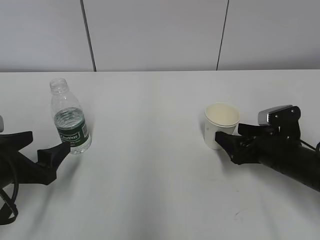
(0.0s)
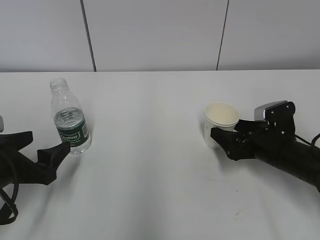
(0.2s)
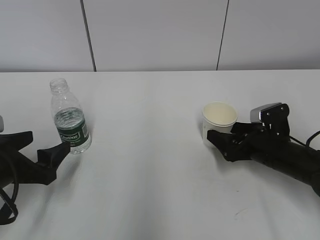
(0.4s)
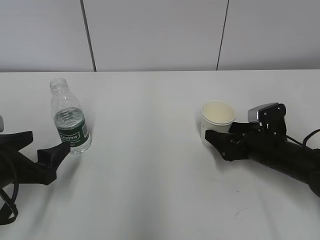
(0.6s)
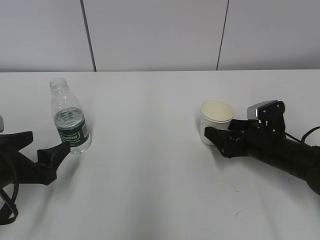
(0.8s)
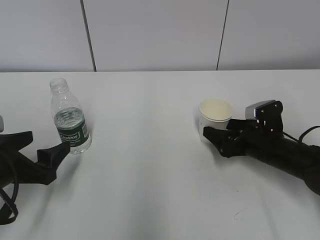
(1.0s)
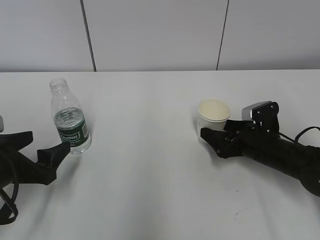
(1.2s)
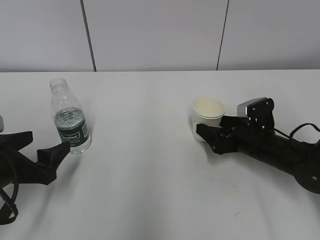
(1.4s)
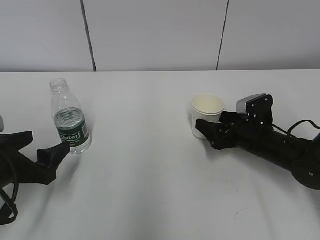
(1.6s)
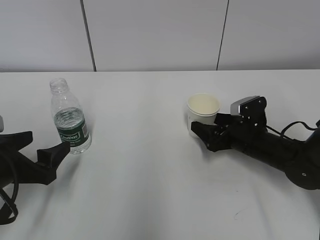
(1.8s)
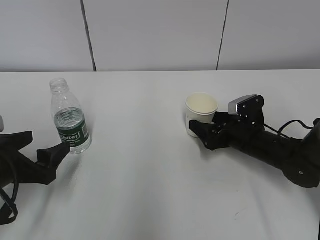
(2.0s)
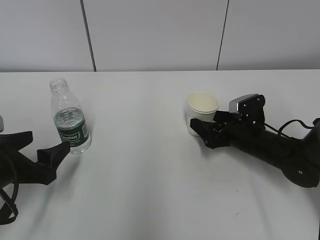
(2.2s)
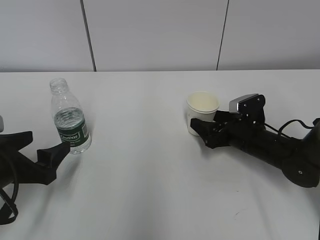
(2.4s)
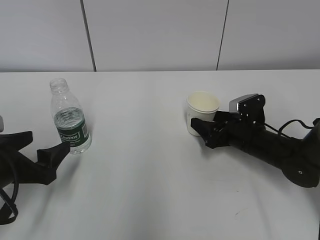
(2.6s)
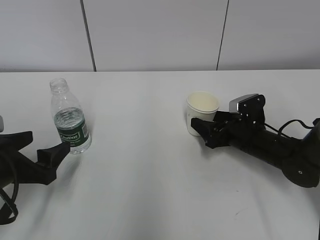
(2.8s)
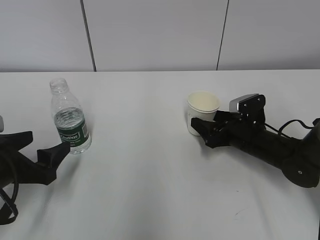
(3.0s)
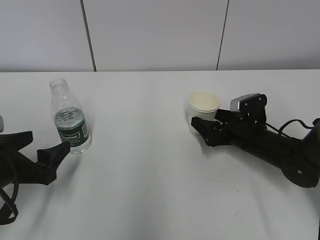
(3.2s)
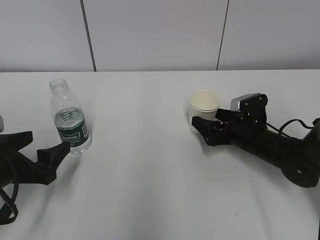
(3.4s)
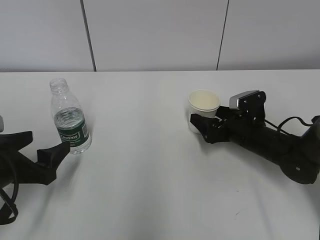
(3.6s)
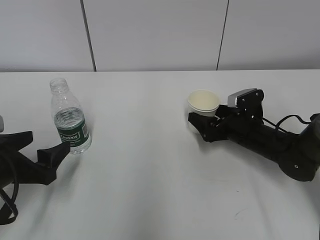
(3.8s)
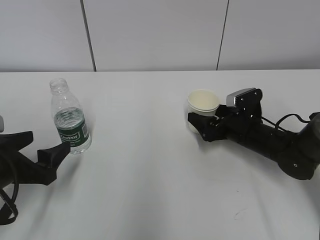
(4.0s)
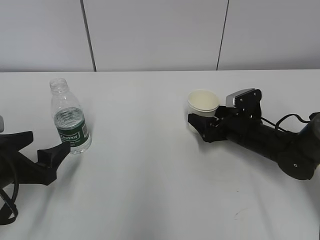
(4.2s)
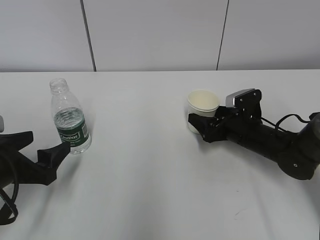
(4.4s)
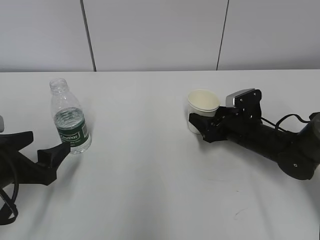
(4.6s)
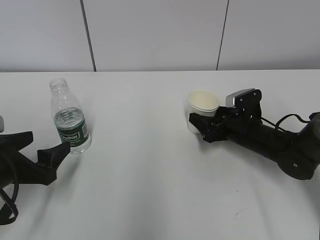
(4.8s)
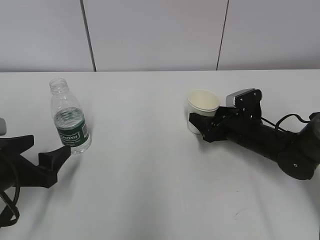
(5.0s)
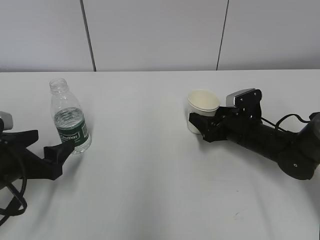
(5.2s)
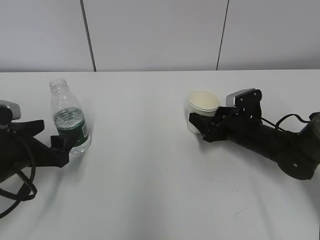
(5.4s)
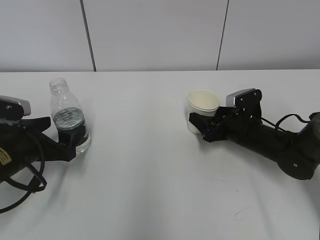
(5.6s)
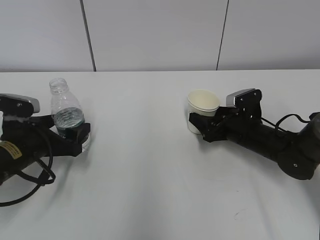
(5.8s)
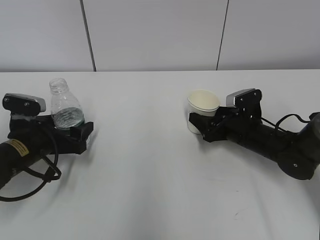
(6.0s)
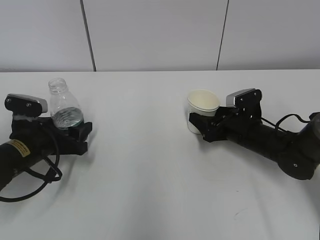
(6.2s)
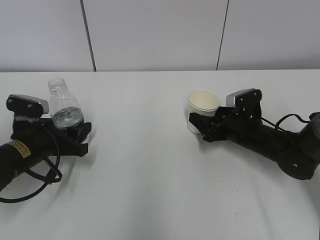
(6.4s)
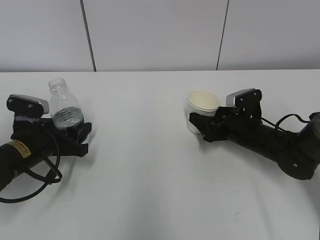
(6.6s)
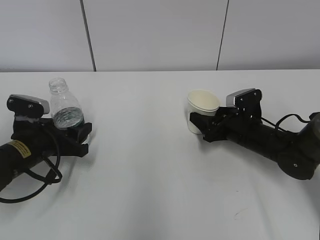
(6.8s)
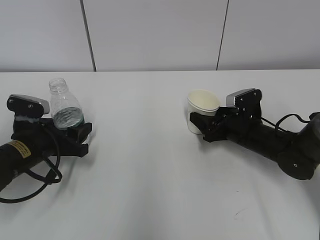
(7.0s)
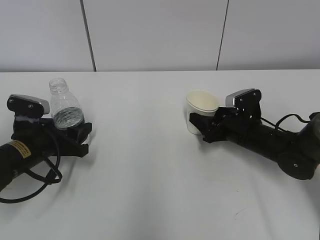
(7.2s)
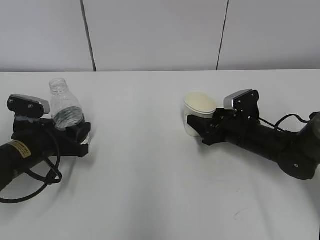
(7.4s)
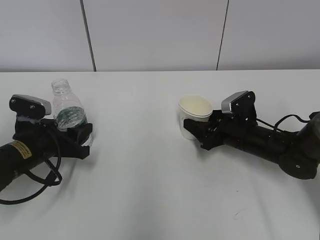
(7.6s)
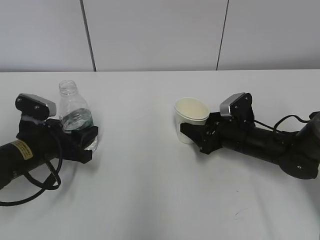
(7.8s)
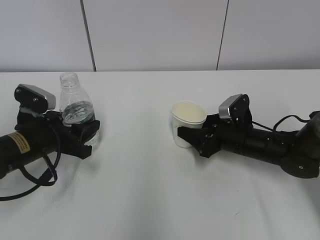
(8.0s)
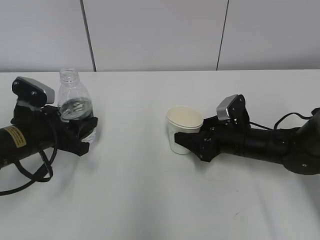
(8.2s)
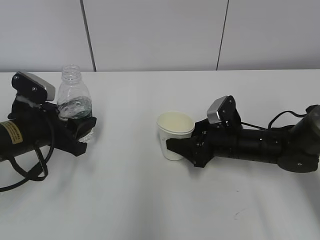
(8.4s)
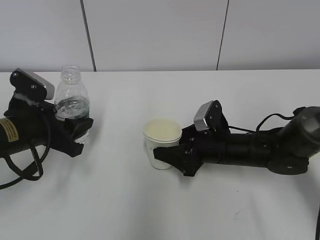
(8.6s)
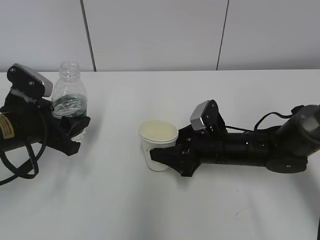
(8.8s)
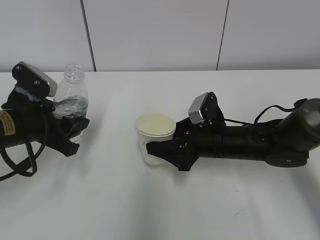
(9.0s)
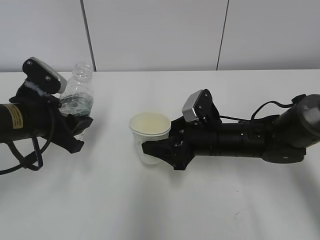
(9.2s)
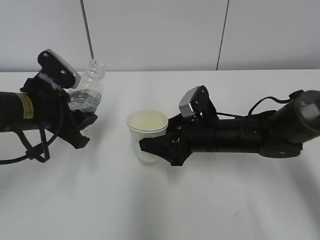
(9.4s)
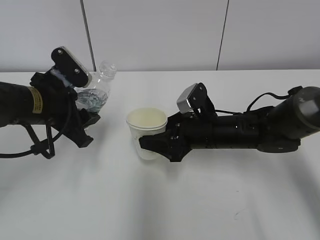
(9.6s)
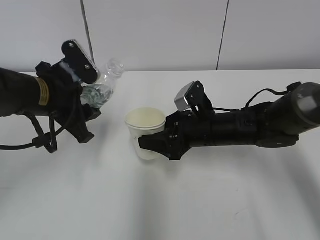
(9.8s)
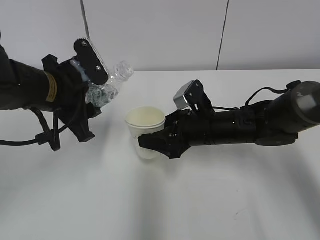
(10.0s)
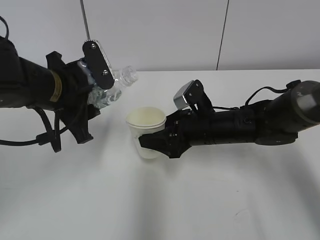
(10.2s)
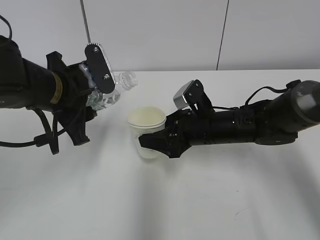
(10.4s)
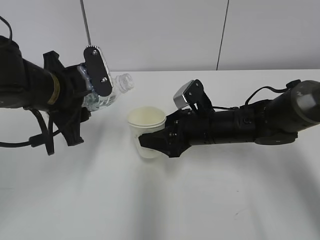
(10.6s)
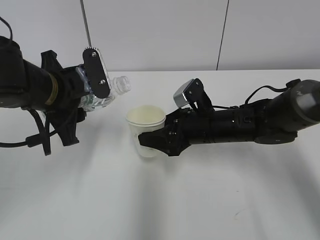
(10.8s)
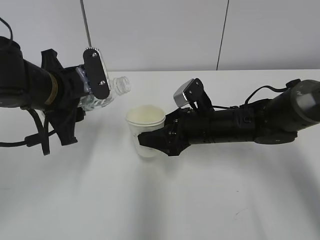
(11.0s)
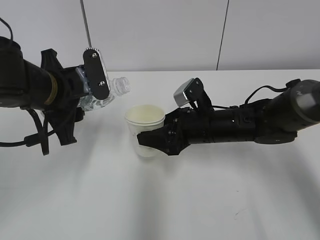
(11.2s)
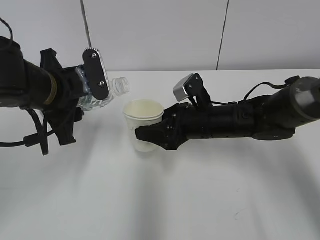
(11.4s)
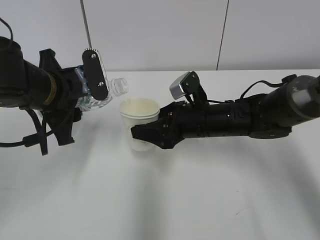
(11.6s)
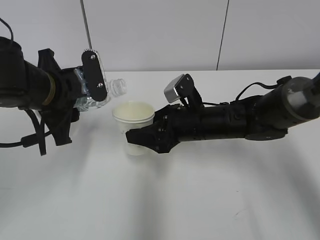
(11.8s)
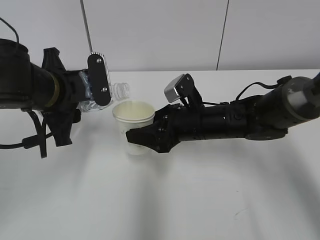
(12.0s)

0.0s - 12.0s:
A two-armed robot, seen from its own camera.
Step, 0.0s - 4.8s: Grab the paper cup with the right hand.
Step, 5.0s - 5.2s: Grab the water bottle with the left hand.
Step, 5.4s - 10.0s: Lift the paper cup with the right hand.
0.0s - 1.6s: The right gripper is displaced forward by about 5 cm.
1.6s - 3.0s: The grippers move only a little.
3.0s - 4.4s: Both grippers stay put.
4.4s - 6.0s: The left gripper shifts some 10 cm forward.
6.0s - 7.6s: The left gripper closes.
7.6s - 9.0s: The right gripper moves to the left, roughly 5 cm, while the left gripper travels upward by roughly 5 cm.
9.0s - 10.4s: The left gripper moves to the right and upward, about 10 cm.
10.4s - 12.0s: There are only small adjustments of the grippers.

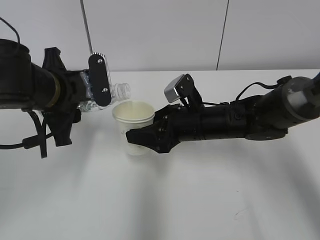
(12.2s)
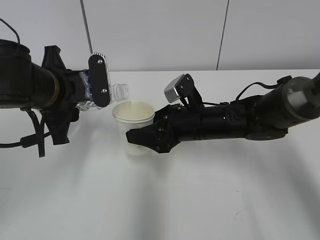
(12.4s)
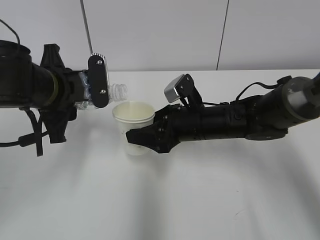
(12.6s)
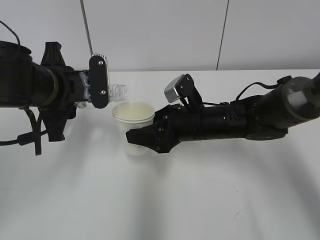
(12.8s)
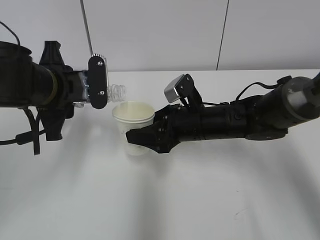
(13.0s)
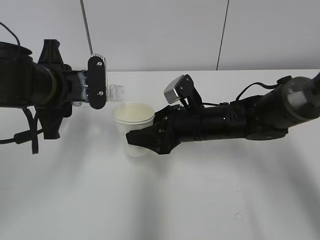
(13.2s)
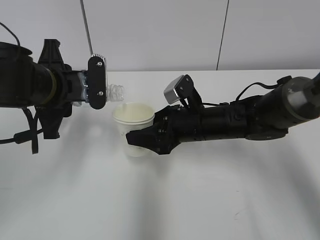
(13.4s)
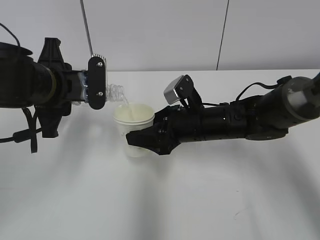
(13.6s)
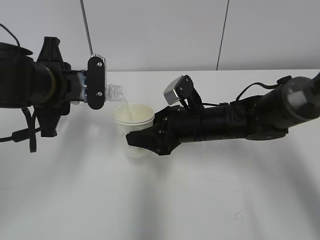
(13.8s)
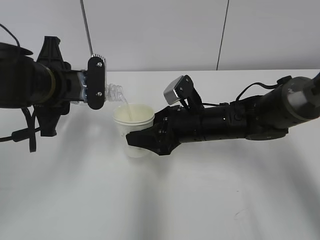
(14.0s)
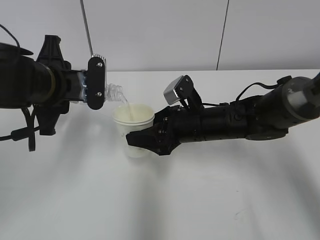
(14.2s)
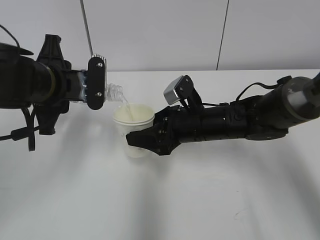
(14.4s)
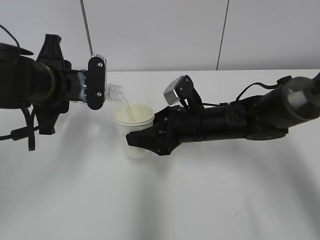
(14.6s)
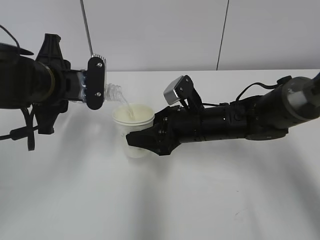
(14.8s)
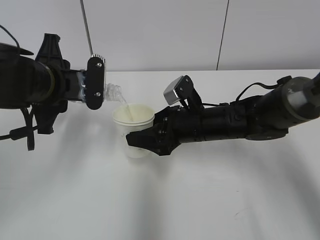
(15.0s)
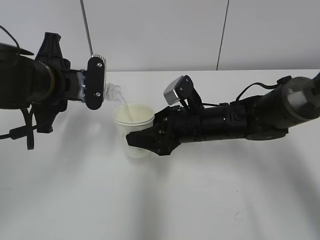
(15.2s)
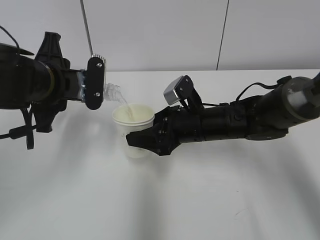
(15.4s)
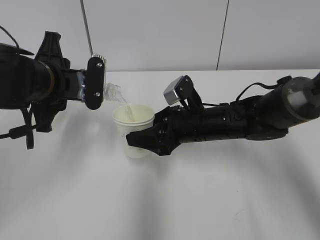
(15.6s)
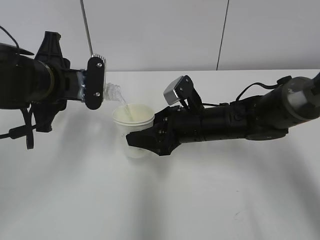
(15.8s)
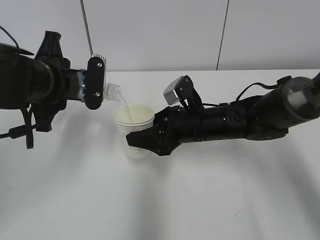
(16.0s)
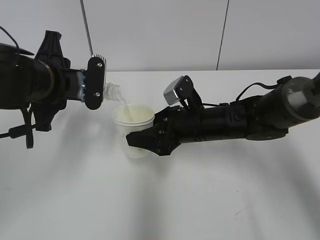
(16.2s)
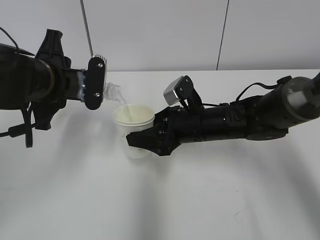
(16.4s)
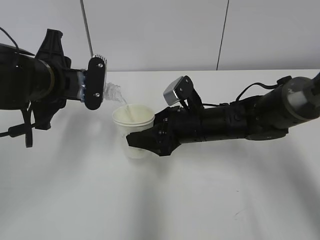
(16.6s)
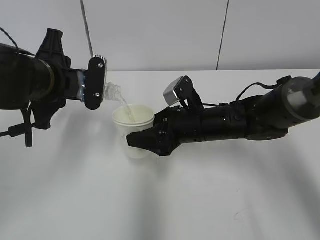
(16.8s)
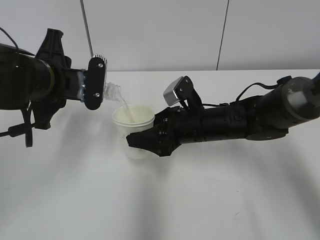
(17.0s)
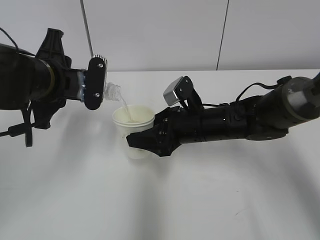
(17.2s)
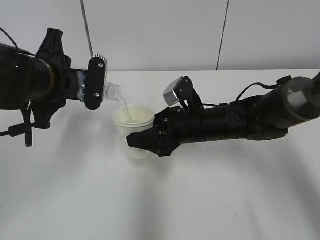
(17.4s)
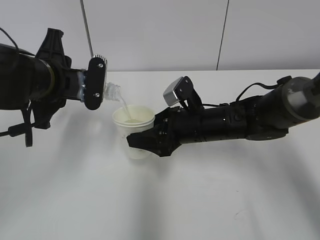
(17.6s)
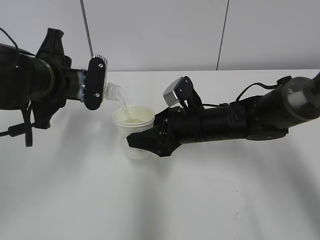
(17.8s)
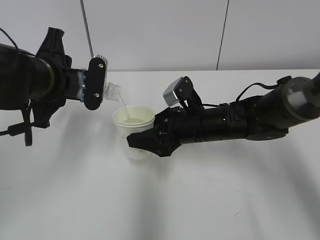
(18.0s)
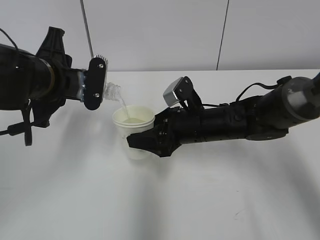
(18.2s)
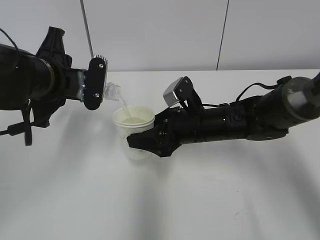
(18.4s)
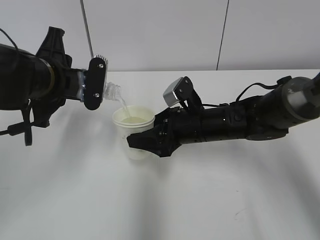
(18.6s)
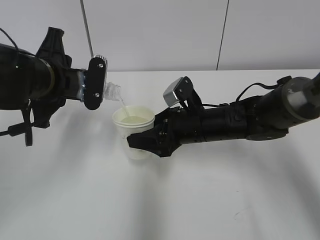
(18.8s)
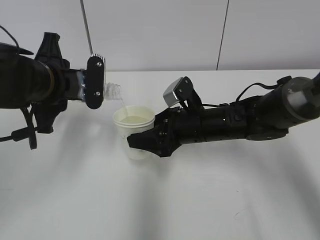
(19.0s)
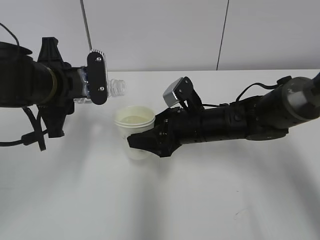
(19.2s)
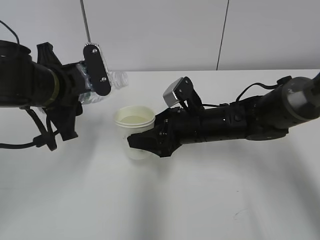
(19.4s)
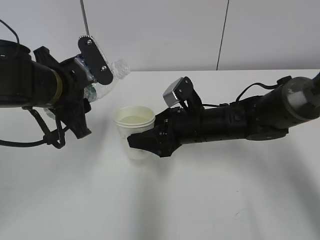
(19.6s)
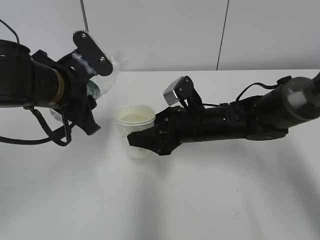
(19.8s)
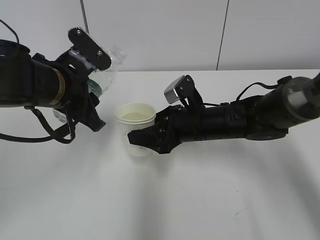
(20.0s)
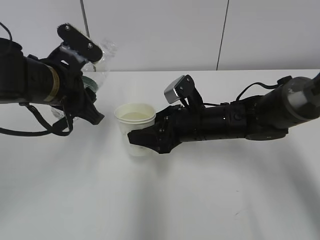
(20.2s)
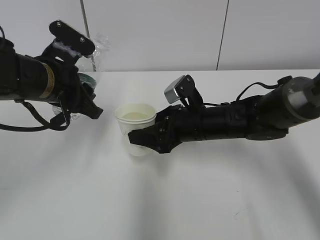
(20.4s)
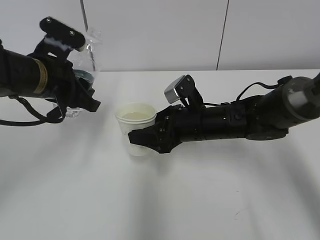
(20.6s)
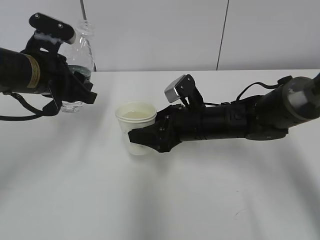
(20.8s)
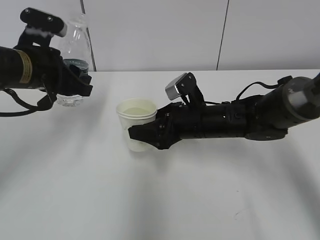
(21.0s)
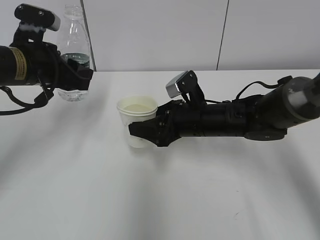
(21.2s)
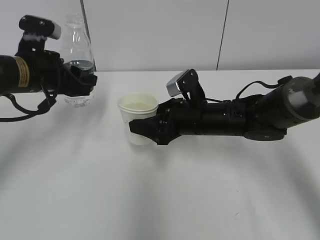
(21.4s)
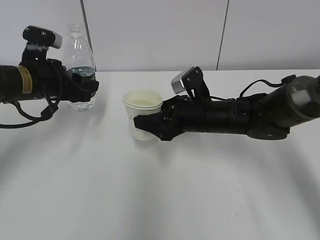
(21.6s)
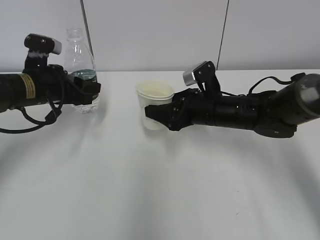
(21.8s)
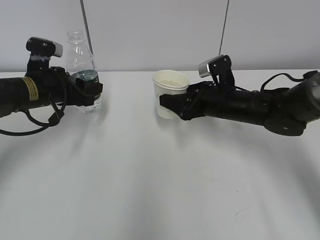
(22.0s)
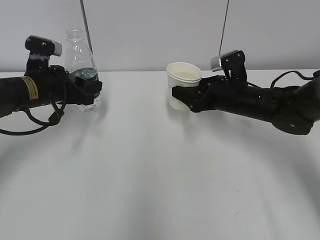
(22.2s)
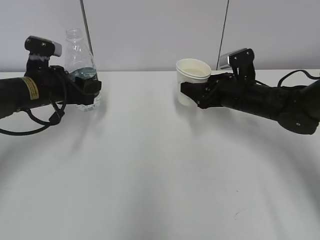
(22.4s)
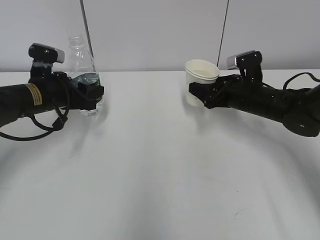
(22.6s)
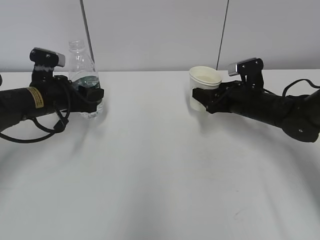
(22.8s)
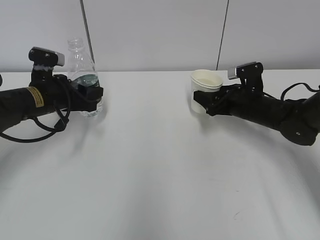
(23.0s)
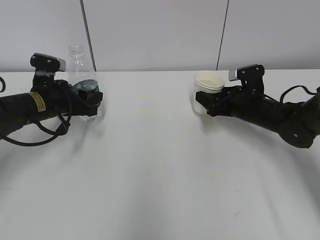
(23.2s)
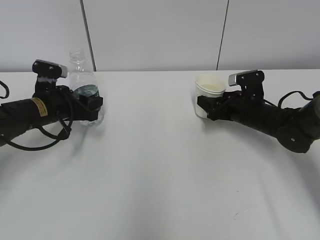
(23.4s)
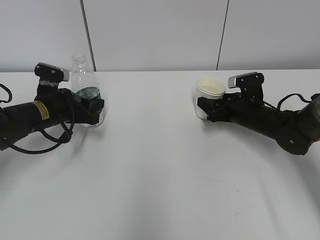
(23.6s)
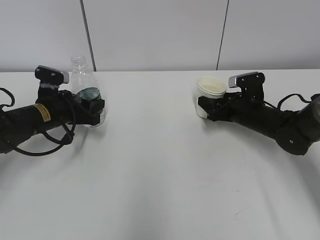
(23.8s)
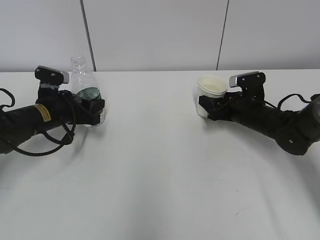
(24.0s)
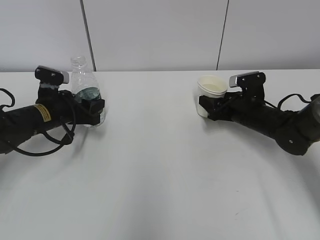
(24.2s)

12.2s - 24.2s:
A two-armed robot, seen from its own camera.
Step, 12.2s - 14.8s: Pour water with the left hand.
Step, 15.0s - 17.0s: Collect water with the left hand.
Step, 21.0s - 22.8s: Place the water bottle with the left hand.
12.2s - 13.8s: The grippers make only small movements.
13.8s - 15.2s: Both grippers stay put.
15.2s - 16.6s: Both grippers stay about where they are.
16.6s - 18.2s: The two grippers keep their place.
19.8s - 21.2s: The left gripper goes approximately 5 cm to the left.
21.2s - 22.6s: The right gripper goes roughly 15 cm to the right and forward, while the left gripper shifts about 10 cm downward.
22.6s - 24.2s: Both grippers move downward, some 5 cm.
